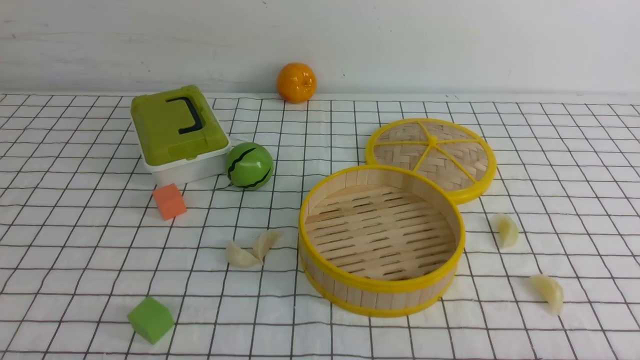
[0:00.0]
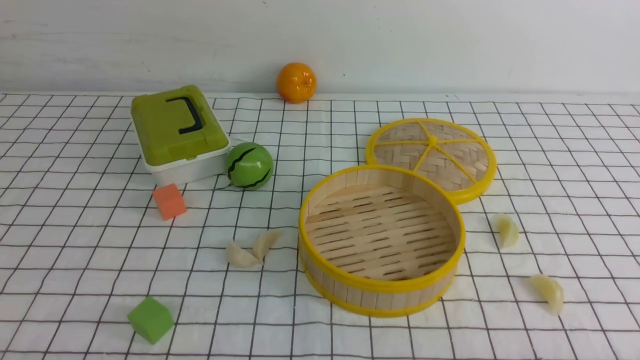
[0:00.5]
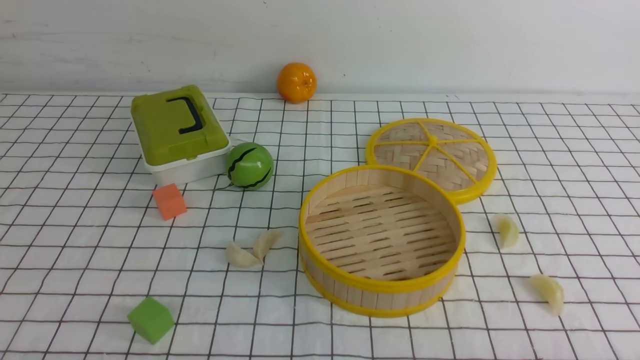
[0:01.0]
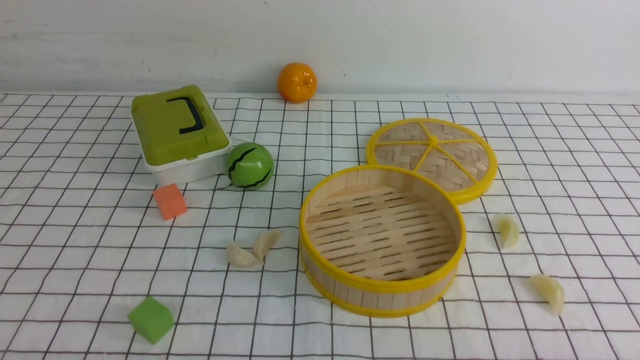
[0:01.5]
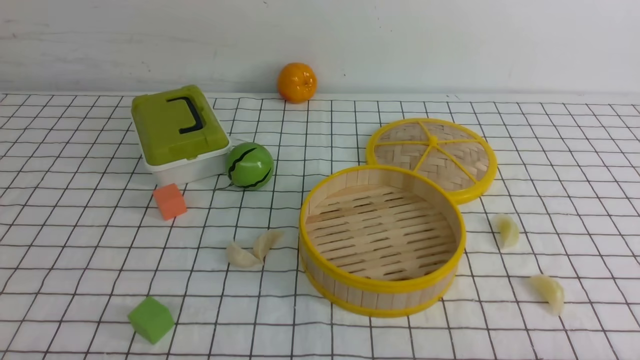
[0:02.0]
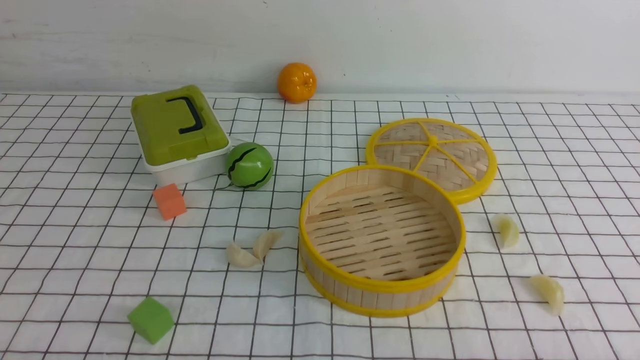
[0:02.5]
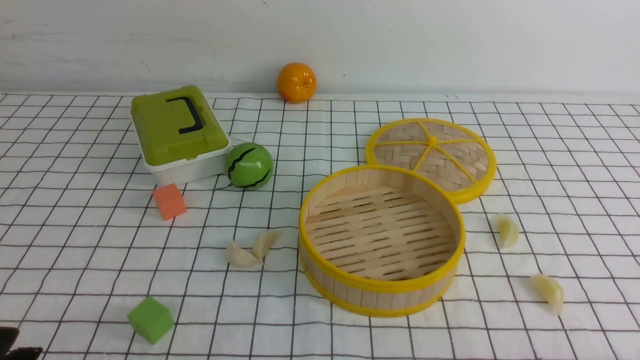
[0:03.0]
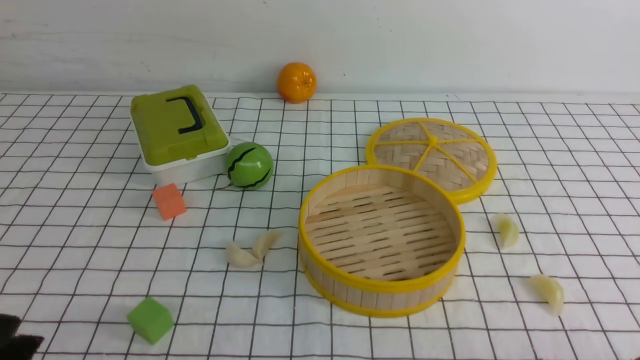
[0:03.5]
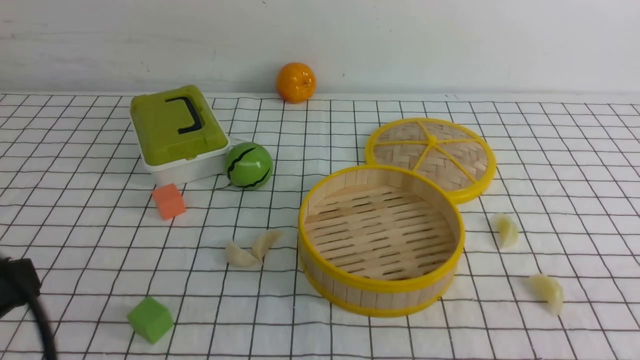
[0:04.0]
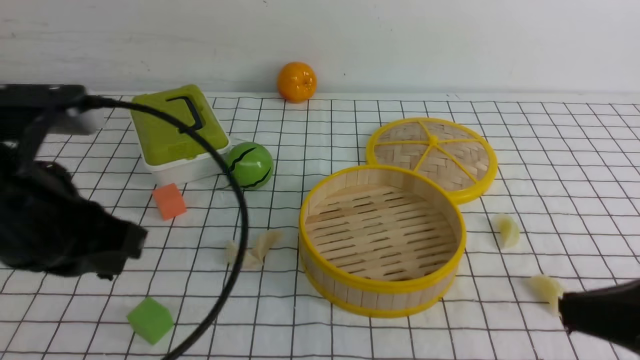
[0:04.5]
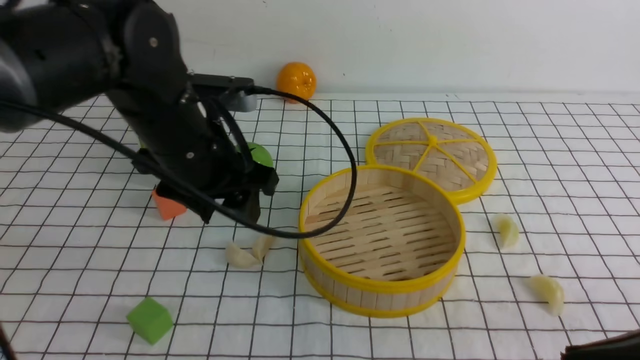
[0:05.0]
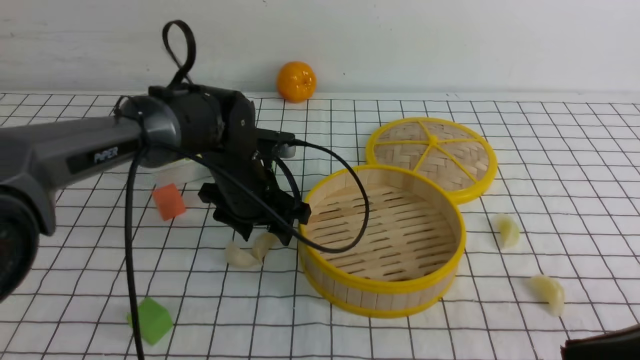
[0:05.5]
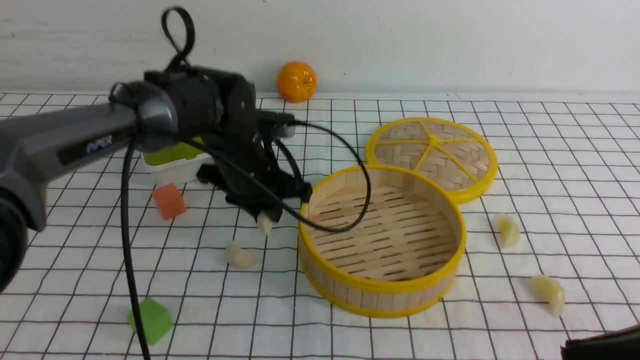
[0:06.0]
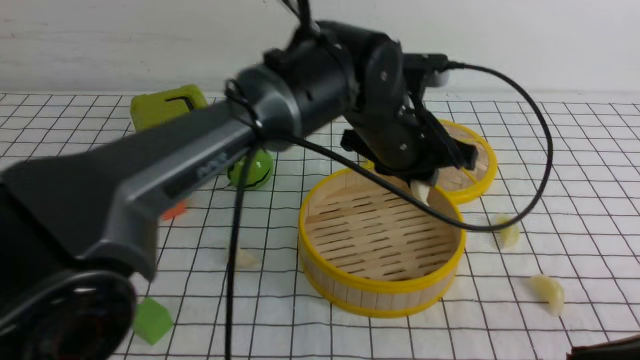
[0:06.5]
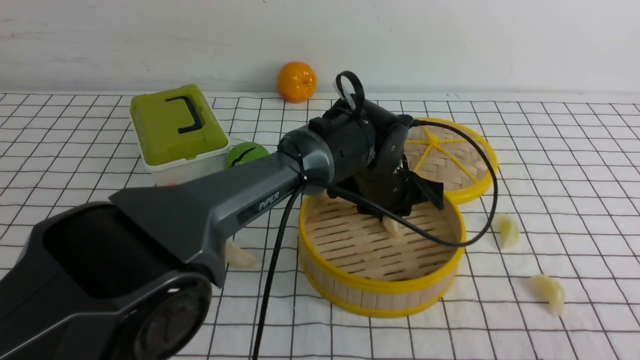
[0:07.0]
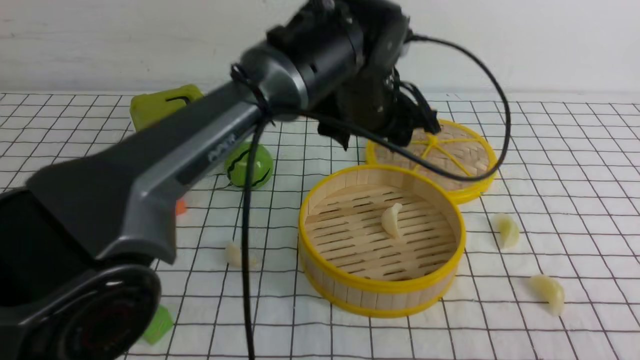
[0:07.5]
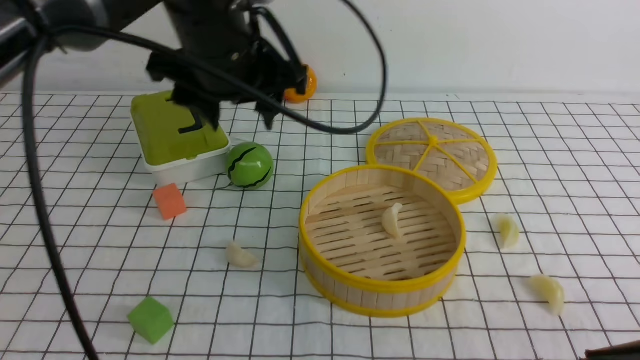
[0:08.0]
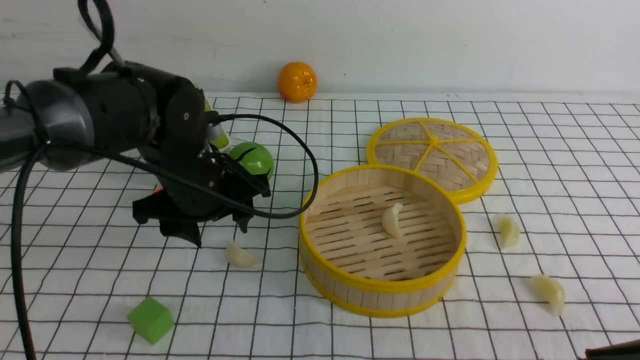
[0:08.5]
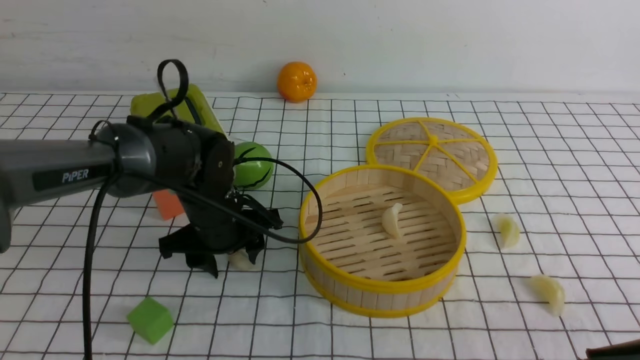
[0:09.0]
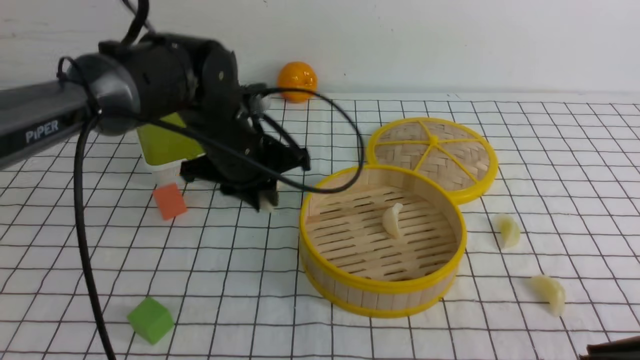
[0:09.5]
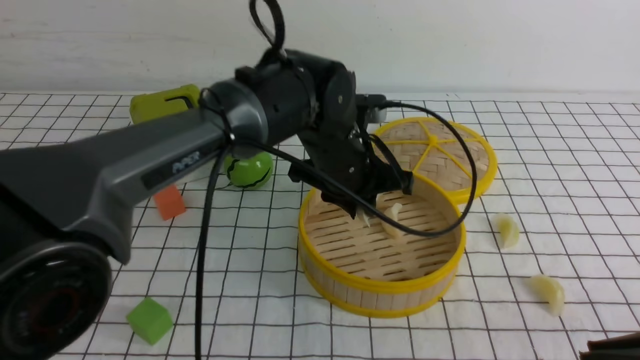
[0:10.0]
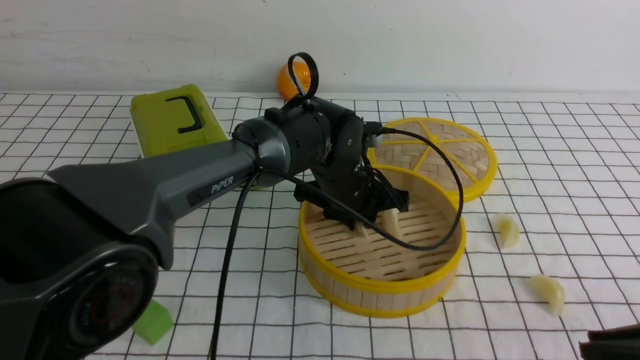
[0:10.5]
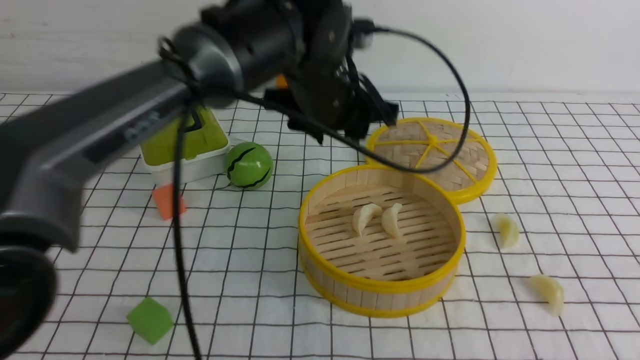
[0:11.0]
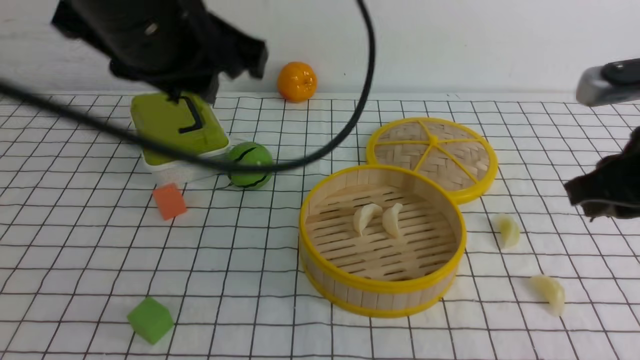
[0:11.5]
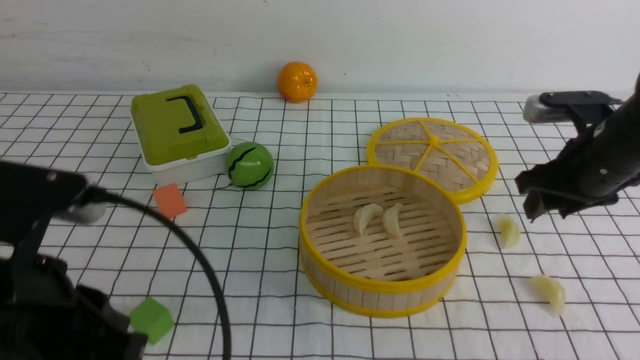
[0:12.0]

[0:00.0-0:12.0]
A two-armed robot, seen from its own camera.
Task of the whole recording: put the dumplings into the steamer on the table with the white tablecloth.
Step, 0:00.0 to 0:05.5: use the left arm to grab a dumpling.
Step, 0:06.0 to 0:07.0: use the left arm to put the dumpling into the steamer.
Step, 0:07.5 to 0:09.0: use the left arm to grab a dumpling.
Step, 0:09.5 to 0:10.5: use the left arm to put the dumpling into the steamer.
0:00.0 to 0:02.0: Neither gripper changes place.
0:02.0 to 0:04.0: The left gripper shifts some 15 cm upward, and closes up.
0:04.0 to 0:06.0: The right gripper shifts by approximately 5 cm; the left gripper goes approximately 35 cm forward and to the right, and opens, then closes again.
0:06.0 to 0:08.0: The left gripper is displaced upward by approximately 10 cm, moves about 15 cm to the right and comes back, and opens its fingers.
0:08.0 to 0:10.0: The left gripper shifts approximately 15 cm downward and to the right, and closes.
0:10.0 to 0:12.0: The right gripper shifts some 25 cm forward, and opens; the left gripper moves backward and to the left, approximately 30 cm, and opens, then closes again.

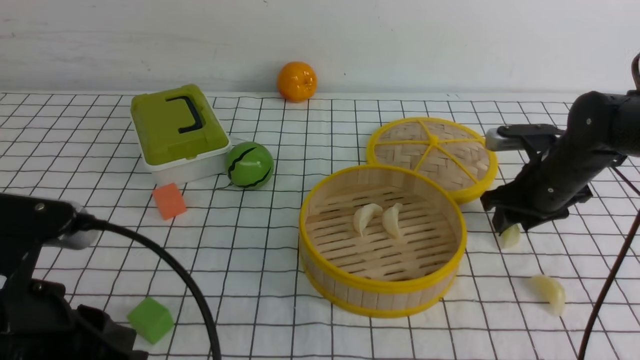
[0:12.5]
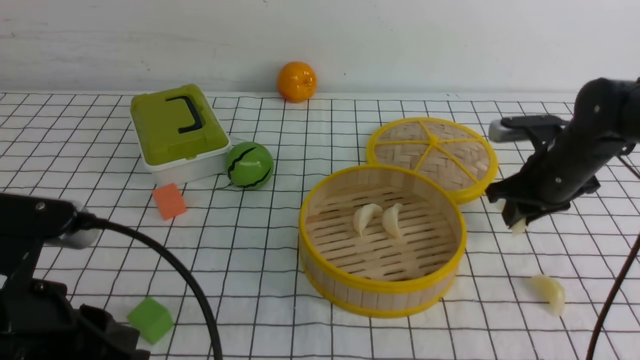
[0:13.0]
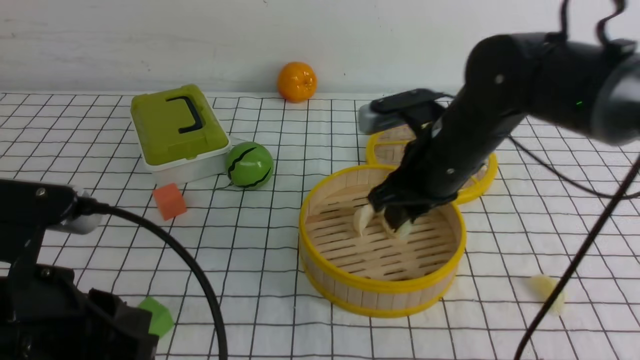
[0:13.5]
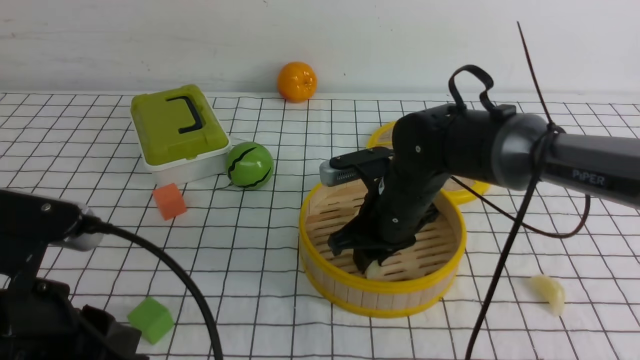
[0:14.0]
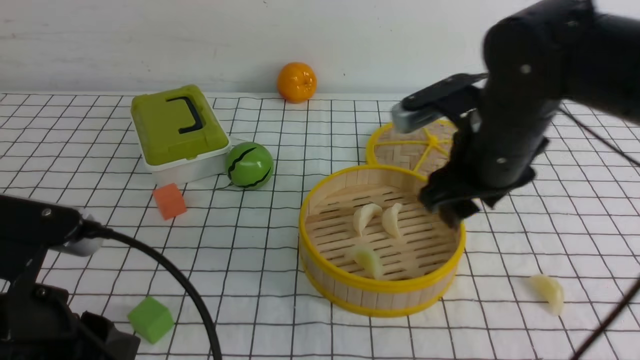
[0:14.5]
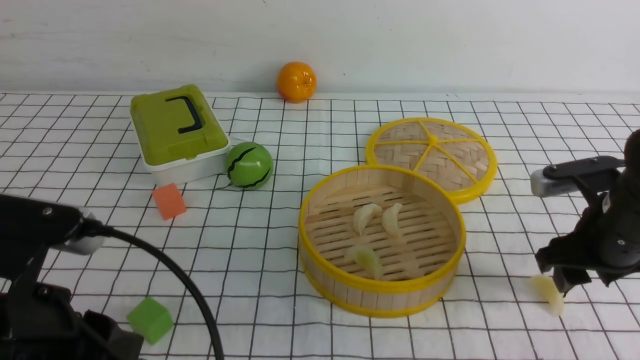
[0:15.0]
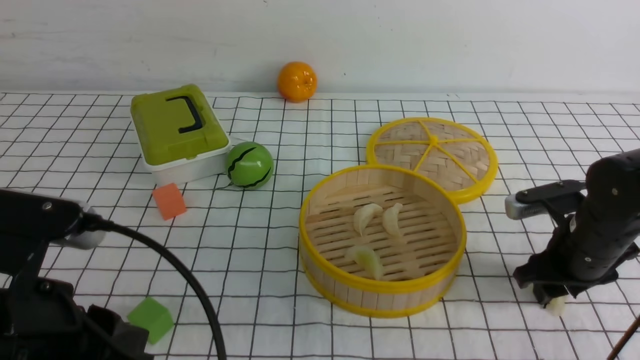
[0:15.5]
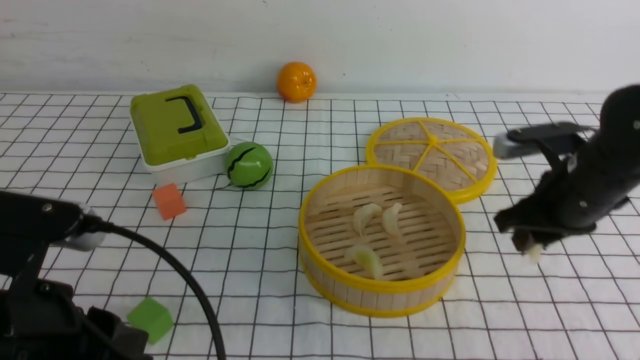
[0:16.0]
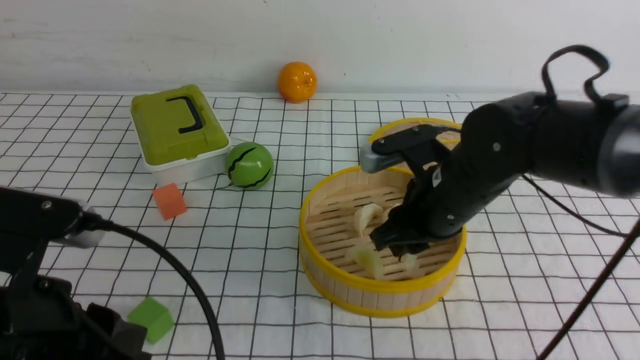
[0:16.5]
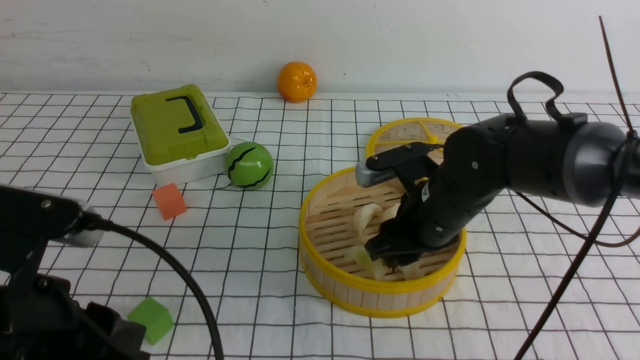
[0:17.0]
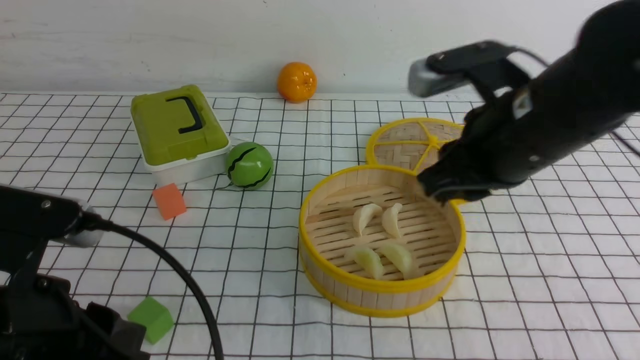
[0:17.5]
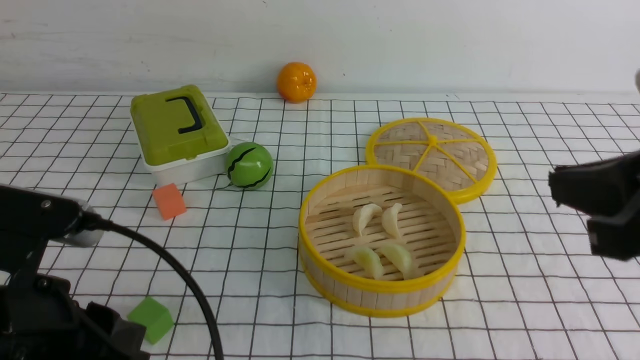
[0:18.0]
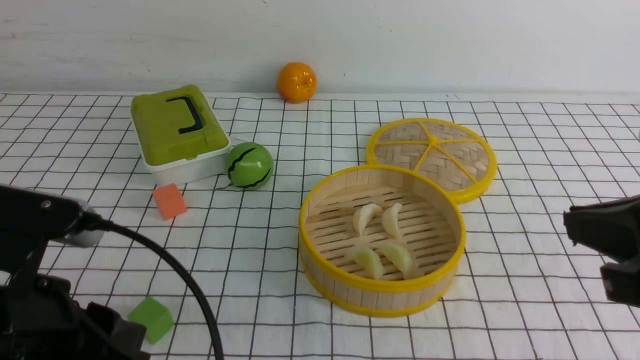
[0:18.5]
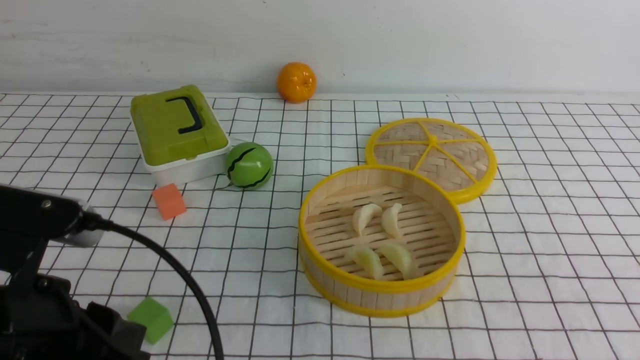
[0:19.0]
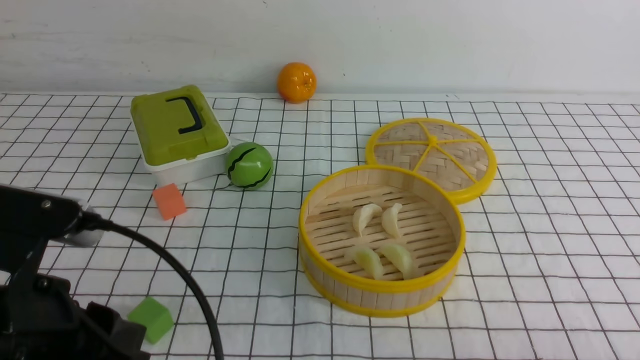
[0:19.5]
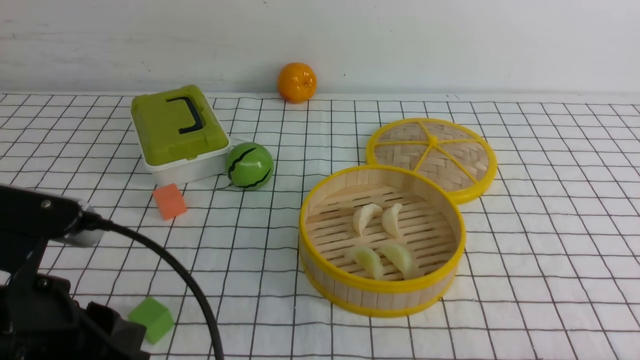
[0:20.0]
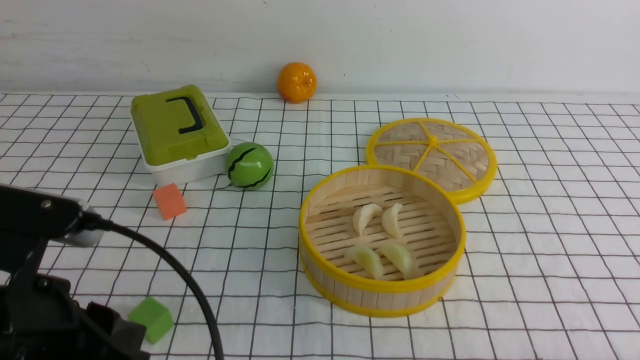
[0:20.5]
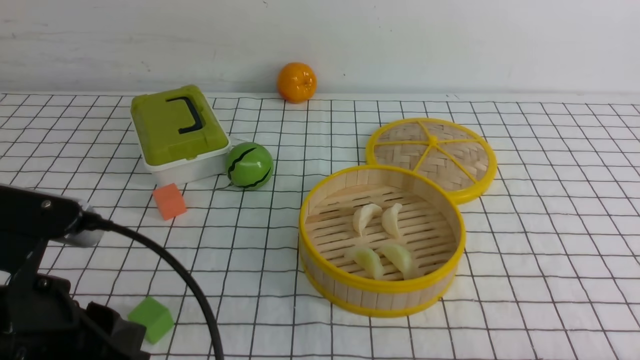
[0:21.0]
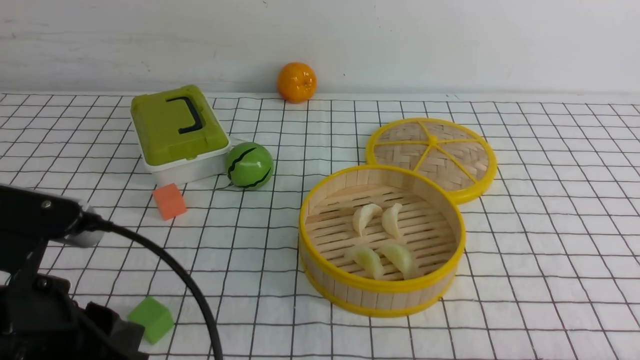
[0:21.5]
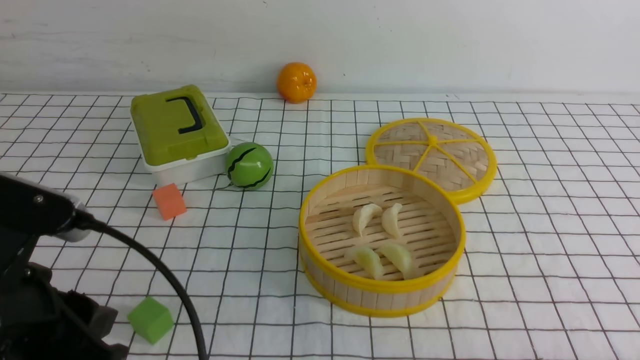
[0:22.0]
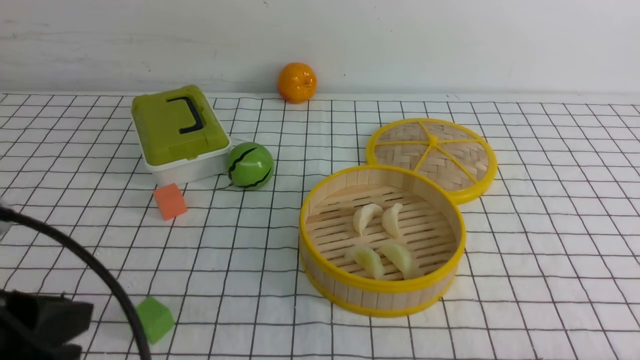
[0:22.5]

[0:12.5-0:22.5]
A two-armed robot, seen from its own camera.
Task of the whole recording: put the dumplings into the steamer on the table with the white tablecloth.
Step, 0:13.0 to 0:14.0: use the right arm to put the dumpling into the steamer.
Step, 0:14.5 to 0:15.5: use the right arm to grab a dumpling.
Step, 0:16.0 to 0:17.0: use the right arm to put the dumpling into the steamer.
0:12.5 to 0:14.5: The right gripper heads to the left, upward and backward, covering about 20 cm.
0:14.5 to 0:16.5: The right gripper travels to the right and back again, roughly 10 cm each way, and closes up.
0:16.5 to 0:18.5: The right gripper moves backward, upward and to the right, about 25 cm, and closes its fingers.
0:18.5 to 0:20.5: The right gripper shifts approximately 20 cm downward, backward and to the right.
0:20.5 to 0:22.5: There are only small adjustments of the grippers.
